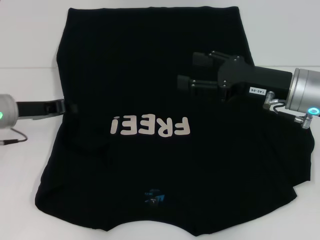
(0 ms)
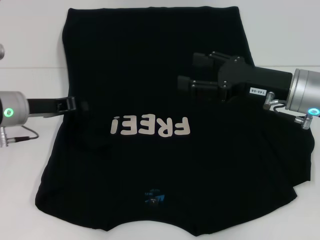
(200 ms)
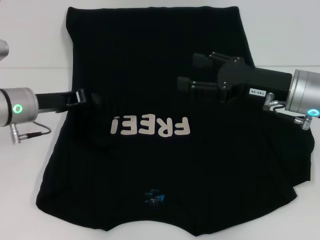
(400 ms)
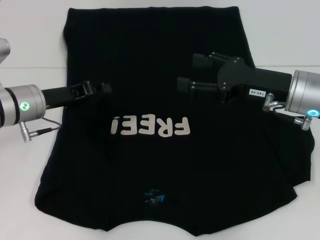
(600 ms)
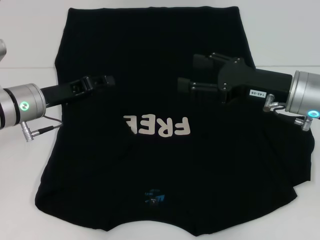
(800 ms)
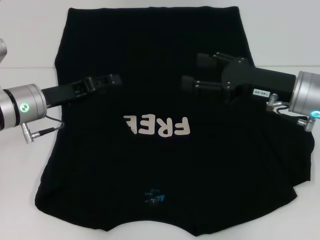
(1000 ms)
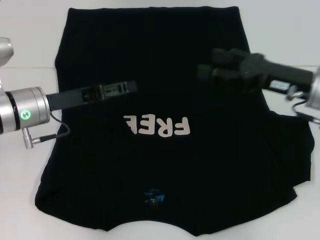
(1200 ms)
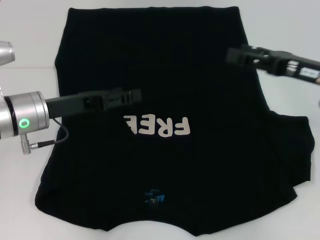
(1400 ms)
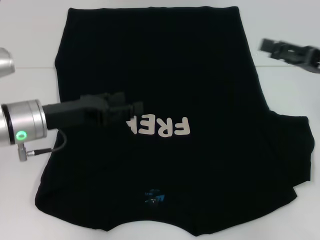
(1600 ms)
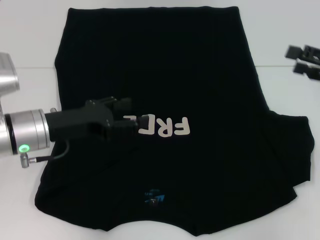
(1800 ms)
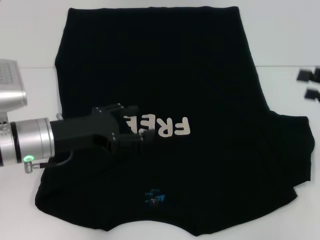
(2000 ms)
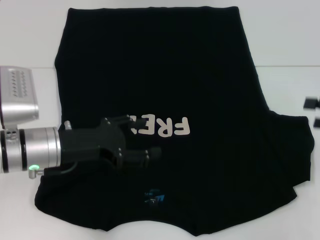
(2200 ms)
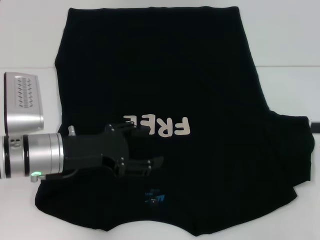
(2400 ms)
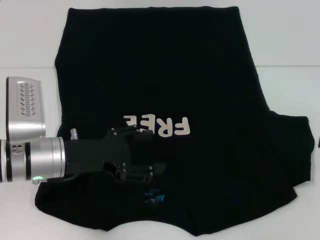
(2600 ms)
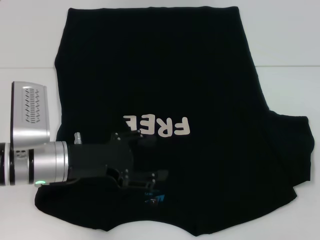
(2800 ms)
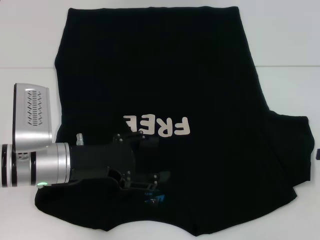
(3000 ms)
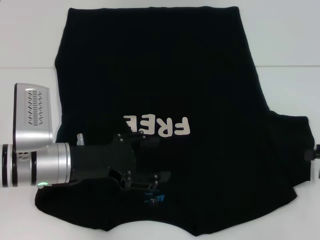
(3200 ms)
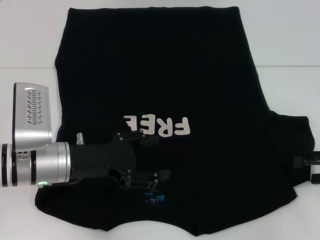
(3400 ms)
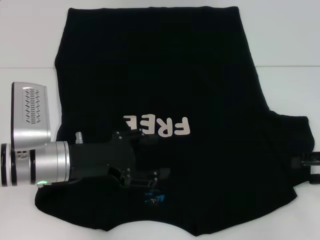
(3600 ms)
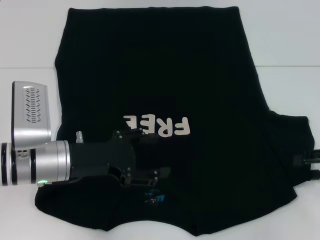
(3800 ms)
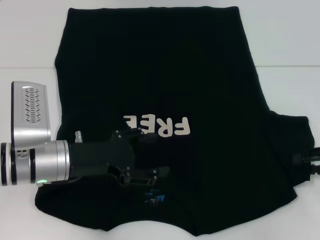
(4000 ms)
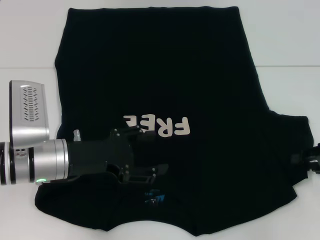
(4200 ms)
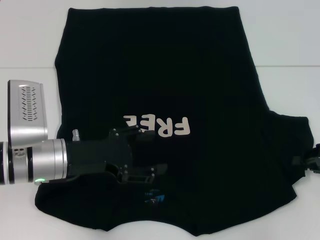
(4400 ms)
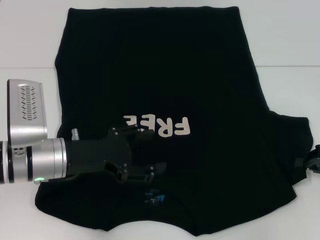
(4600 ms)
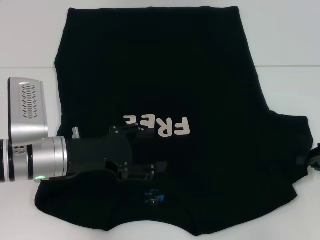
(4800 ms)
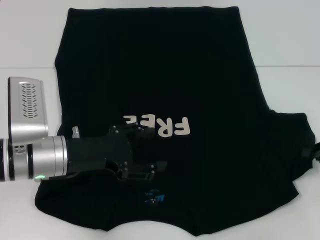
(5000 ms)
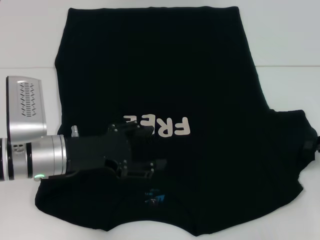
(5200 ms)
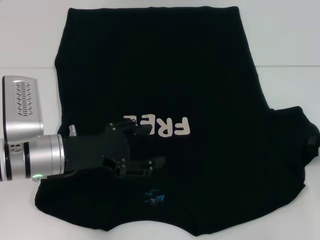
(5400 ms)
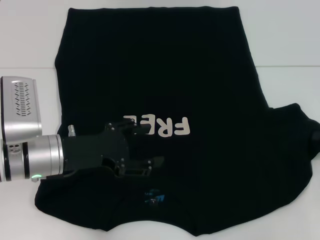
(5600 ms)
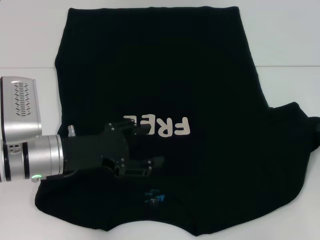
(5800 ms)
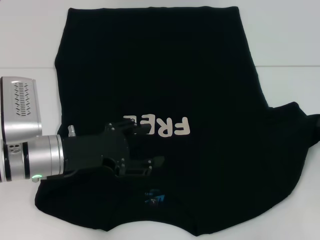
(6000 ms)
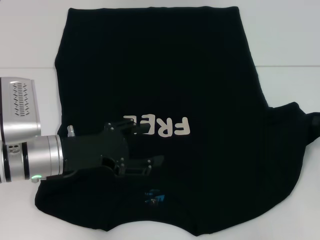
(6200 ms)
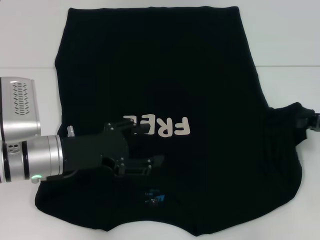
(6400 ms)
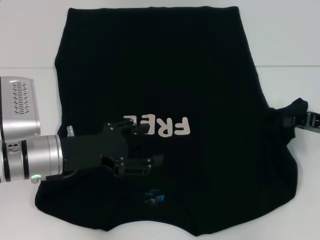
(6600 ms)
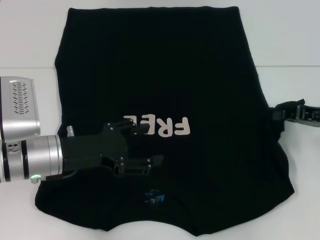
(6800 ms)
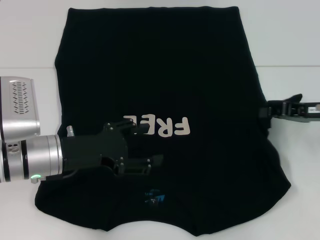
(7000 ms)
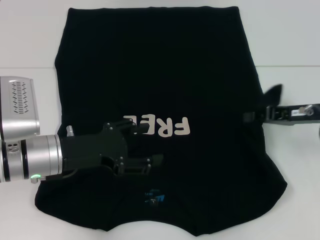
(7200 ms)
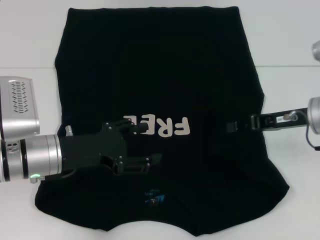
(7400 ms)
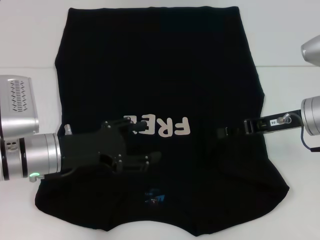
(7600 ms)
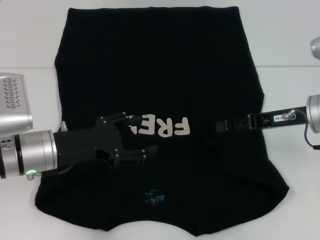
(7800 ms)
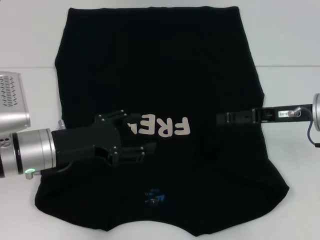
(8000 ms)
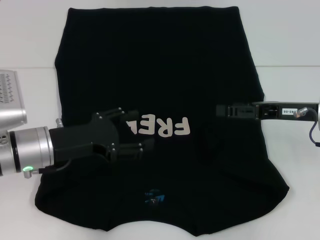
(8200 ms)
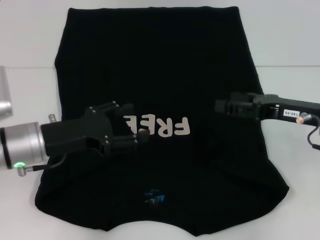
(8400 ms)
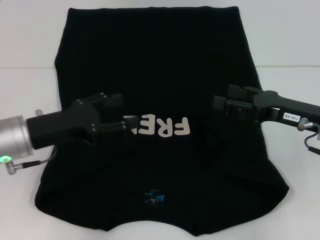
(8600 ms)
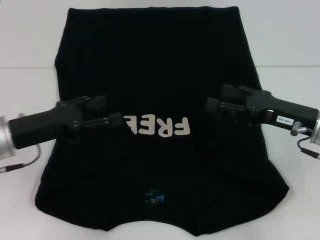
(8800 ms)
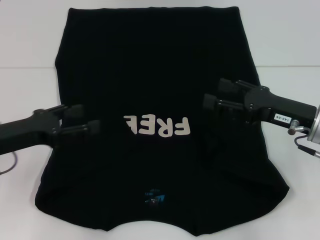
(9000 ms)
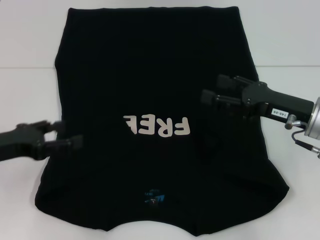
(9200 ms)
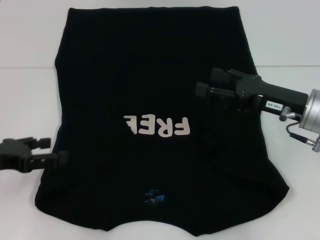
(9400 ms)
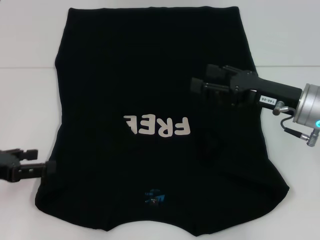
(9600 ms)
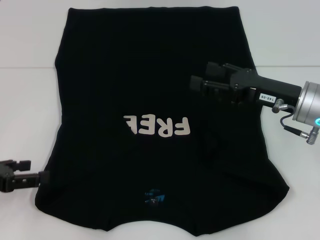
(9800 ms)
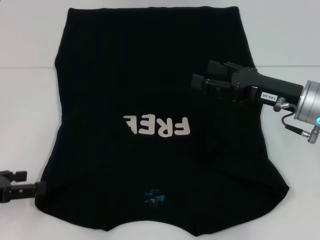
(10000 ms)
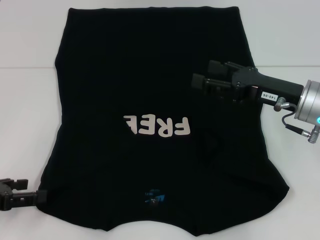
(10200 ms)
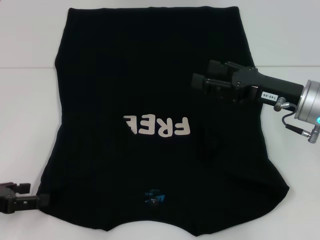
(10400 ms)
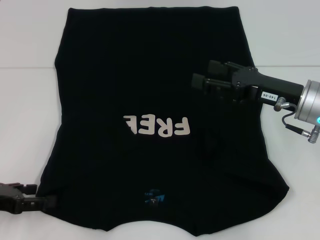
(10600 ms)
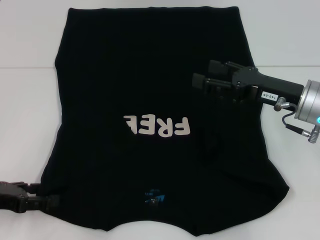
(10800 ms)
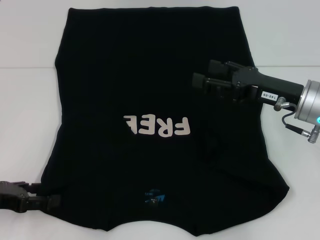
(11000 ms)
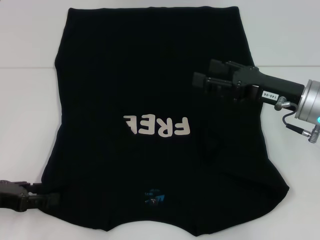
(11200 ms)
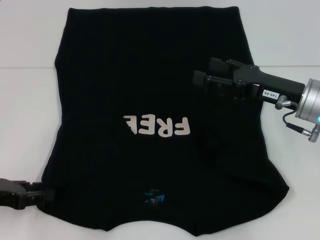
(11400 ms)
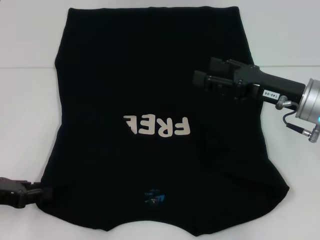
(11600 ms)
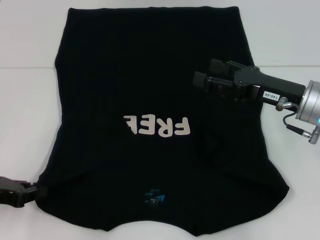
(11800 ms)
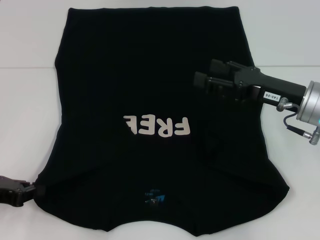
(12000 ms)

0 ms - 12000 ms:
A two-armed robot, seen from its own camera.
Step, 1000 ms - 8200 ms: Fold the bottom right sleeve with your right hand.
0 ms - 1600 ms: The left gripper shifts approximately 5 cm to the right, and opens up; the right gripper shifts roughly 10 cm to the right.
1600 ms - 3000 ms: The right gripper moves to the right and backward, approximately 10 cm; the left gripper shifts by some 5 cm.
3000 ms - 4400 ms: The right gripper ends up roughly 5 cm from where it was, and closes up.
6000 ms - 7600 ms: The right gripper heads to the left, covering about 15 cm.
7600 ms - 9000 ms: The left gripper moves to the left, roughly 10 cm. The right gripper opens its fingers.
9000 ms - 10400 ms: The left gripper is displaced to the left and backward by about 10 cm.
10400 ms - 12000 ms: The left gripper closes its fingers.

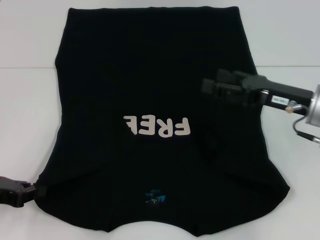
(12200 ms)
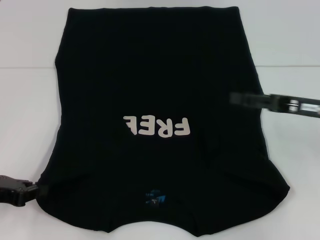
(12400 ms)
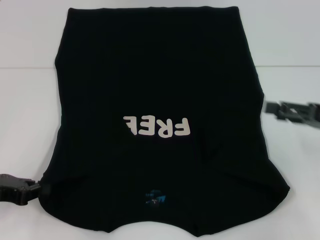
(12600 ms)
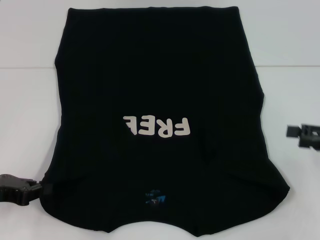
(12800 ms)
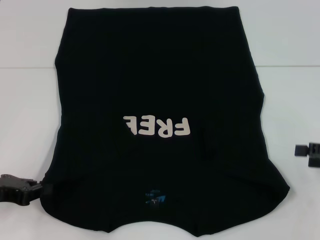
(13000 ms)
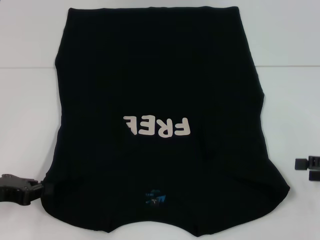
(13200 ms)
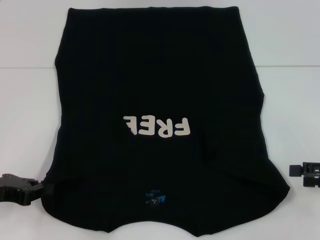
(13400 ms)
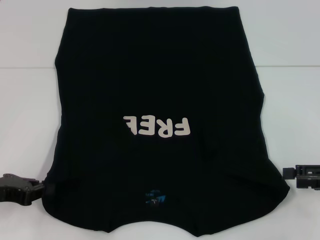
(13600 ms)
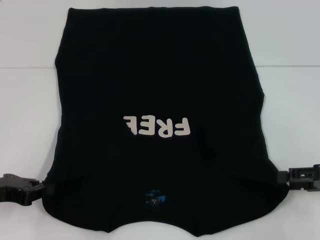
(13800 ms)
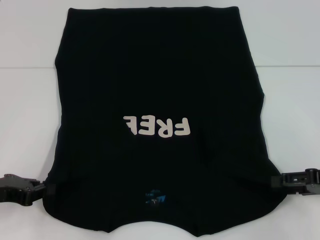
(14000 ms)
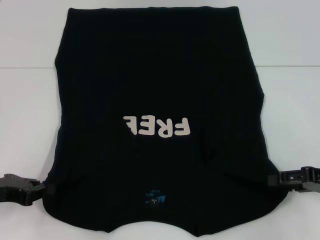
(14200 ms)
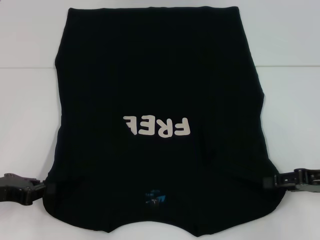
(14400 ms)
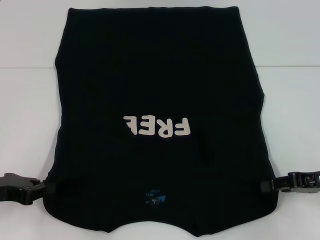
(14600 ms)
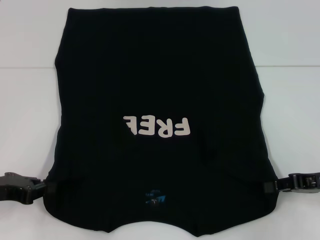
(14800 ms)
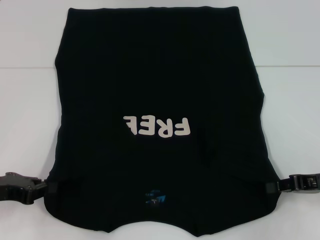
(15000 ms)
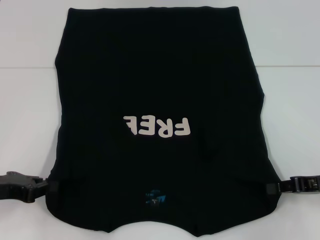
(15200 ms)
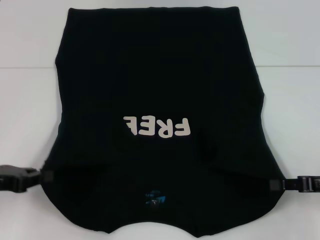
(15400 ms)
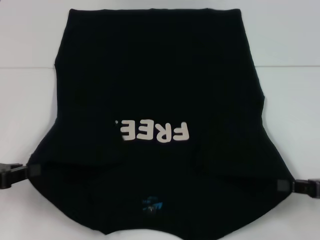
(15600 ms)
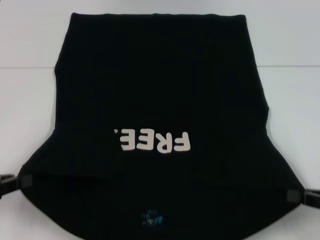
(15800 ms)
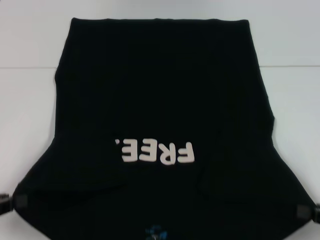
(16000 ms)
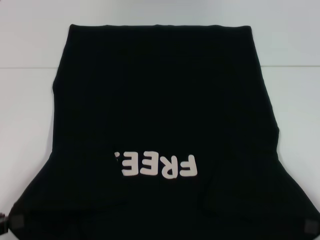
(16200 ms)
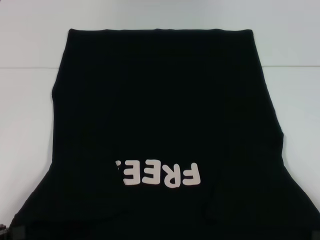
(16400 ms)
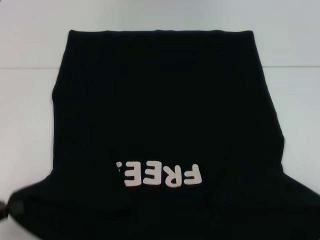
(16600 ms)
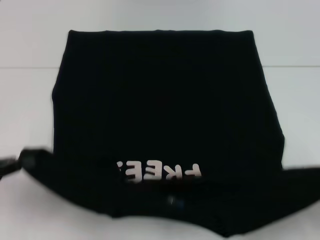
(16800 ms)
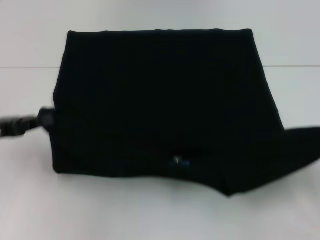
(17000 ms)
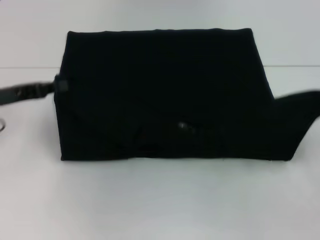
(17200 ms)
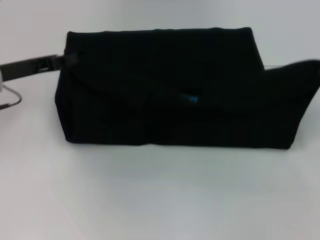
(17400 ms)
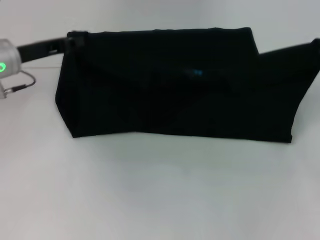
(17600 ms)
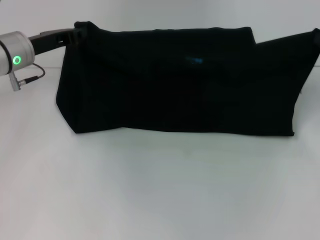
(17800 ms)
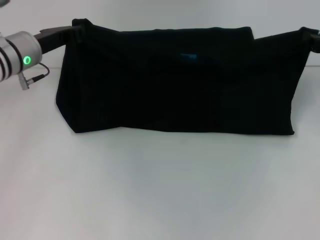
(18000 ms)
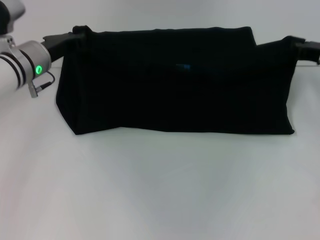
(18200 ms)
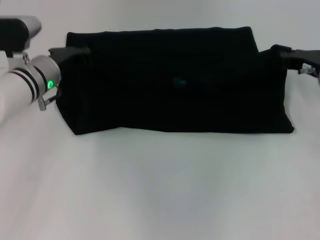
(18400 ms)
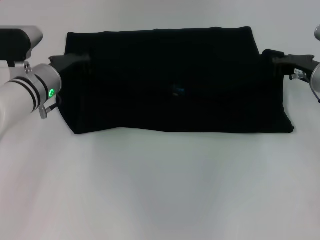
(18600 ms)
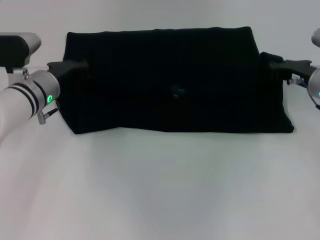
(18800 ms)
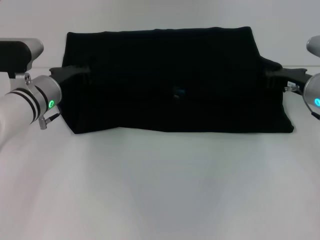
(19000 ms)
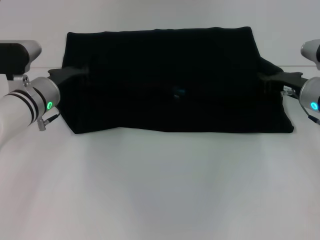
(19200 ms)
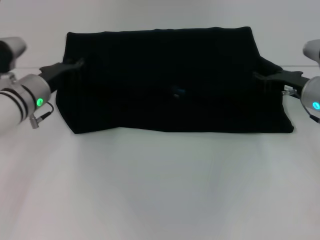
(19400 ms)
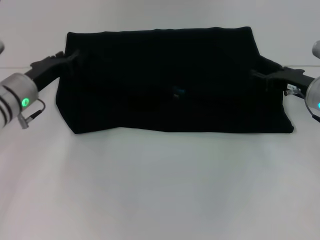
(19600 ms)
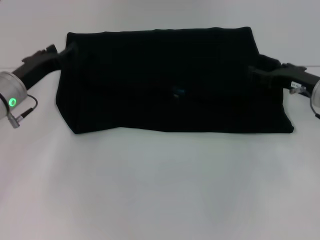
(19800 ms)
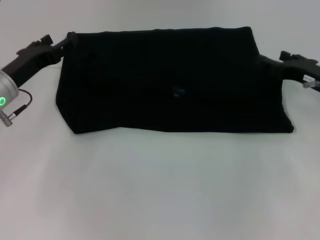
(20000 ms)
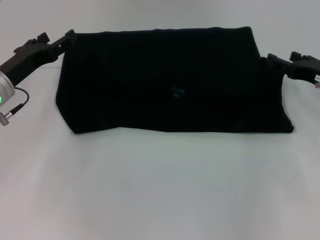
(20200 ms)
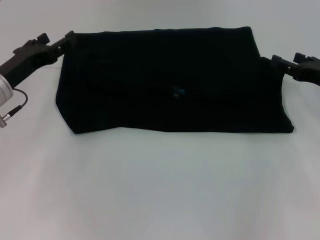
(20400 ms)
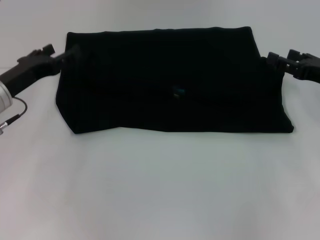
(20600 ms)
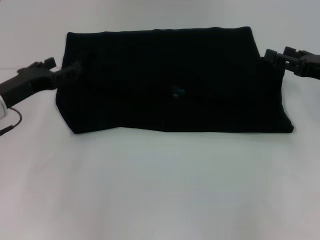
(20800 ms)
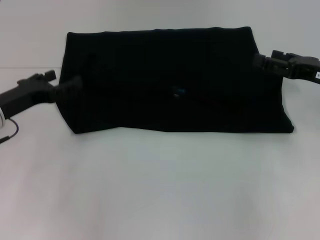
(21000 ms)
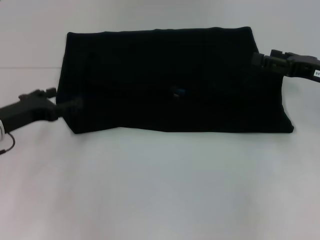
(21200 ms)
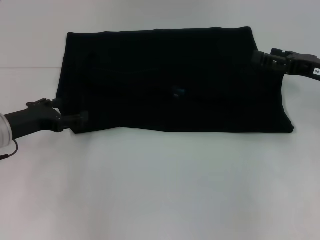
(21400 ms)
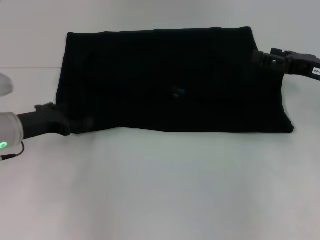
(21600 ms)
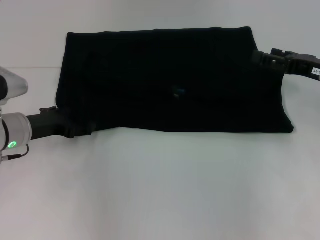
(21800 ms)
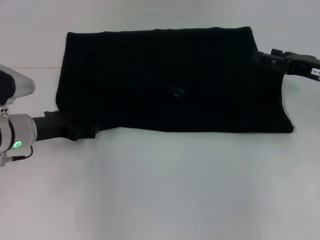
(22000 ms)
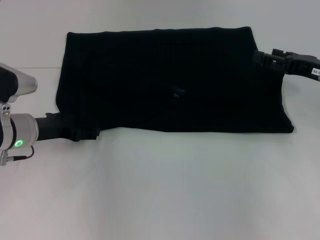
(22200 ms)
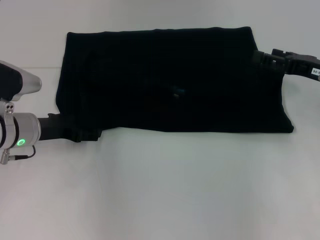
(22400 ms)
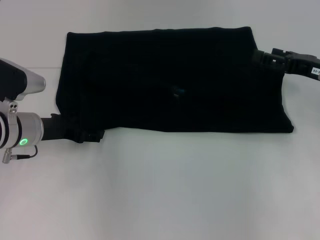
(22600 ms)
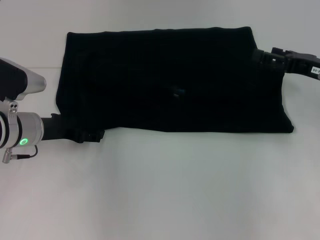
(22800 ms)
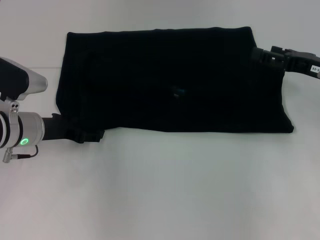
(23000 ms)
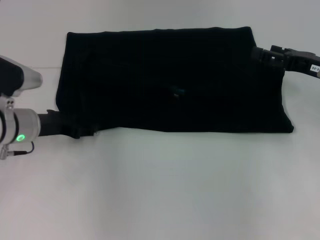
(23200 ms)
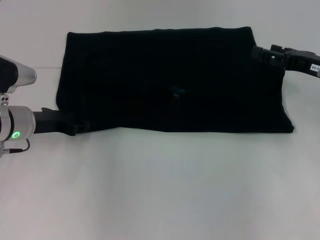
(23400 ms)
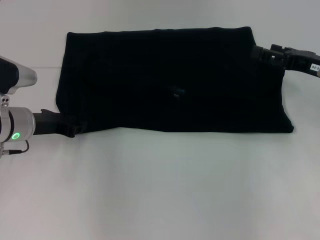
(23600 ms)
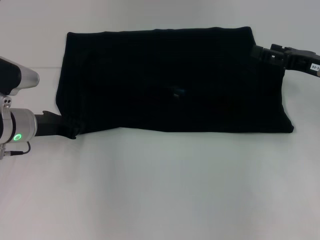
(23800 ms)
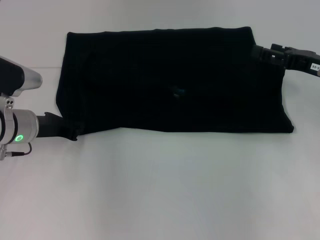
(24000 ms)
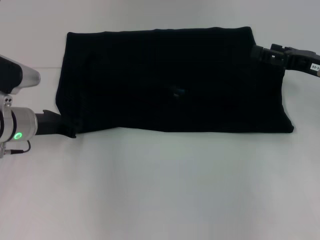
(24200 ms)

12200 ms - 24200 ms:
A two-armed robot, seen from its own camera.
Step, 12200 ms - 15000 ms: Grab the bottom right corner with your right hand.
Step, 15200 ms - 19600 ms: Fold the clothes with your left hand.
Step, 15200 ms - 19600 ms: Fold the clothes with your right hand.
12200 ms - 13800 ms: The right gripper shifts some 15 cm to the right and backward.
13800 ms - 15200 ms: The right gripper closes its fingers.
15200 ms - 16600 ms: The left gripper is displaced backward by about 10 cm; the right gripper moves backward and to the right, roughly 15 cm.
16600 ms - 18200 ms: The right gripper shifts approximately 25 cm forward; the left gripper moves forward and to the right, some 30 cm.
18200 ms - 19800 ms: The right gripper ends up some 5 cm from where it was, and opens up; the left gripper goes approximately 5 cm backward.
19800 ms - 21200 ms: The left gripper moves backward, some 5 cm, and opens. The right gripper shifts by roughly 5 cm.
21200 ms - 22600 ms: The left gripper changes place by approximately 5 cm.
22600 ms - 24200 ms: The left gripper closes its fingers.
